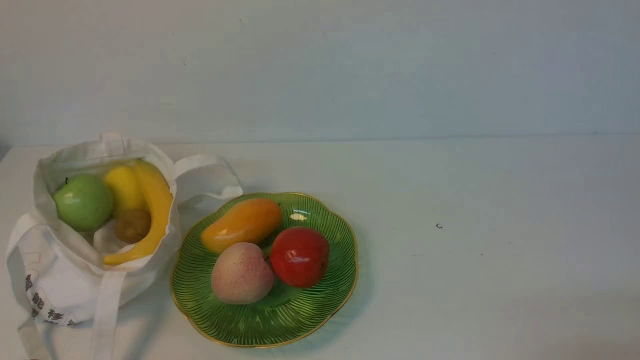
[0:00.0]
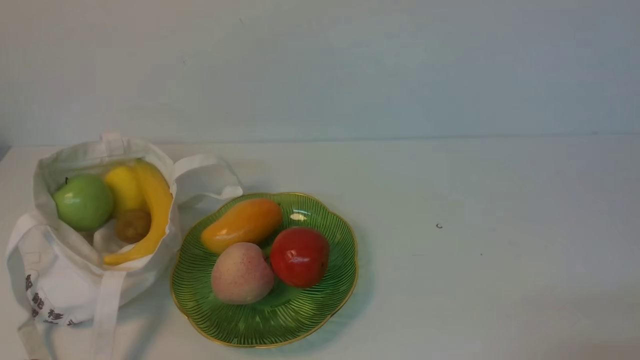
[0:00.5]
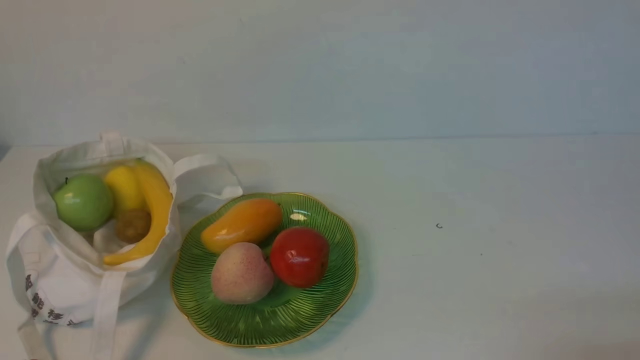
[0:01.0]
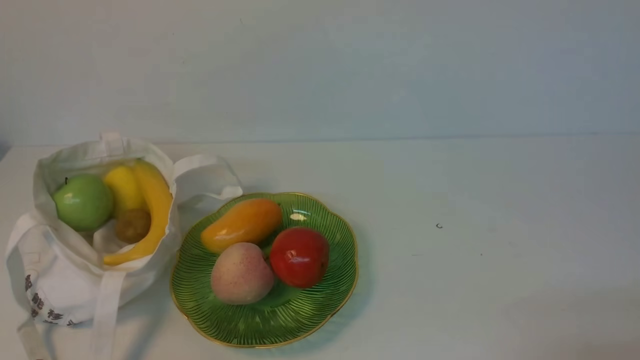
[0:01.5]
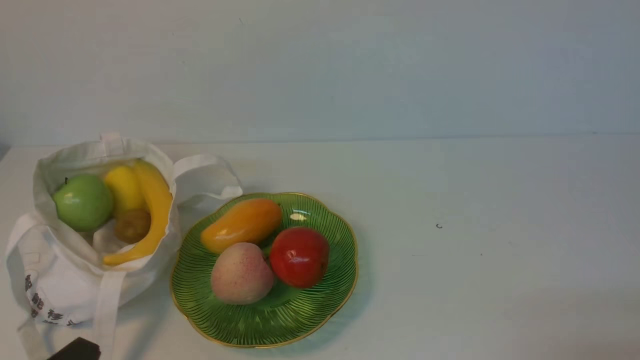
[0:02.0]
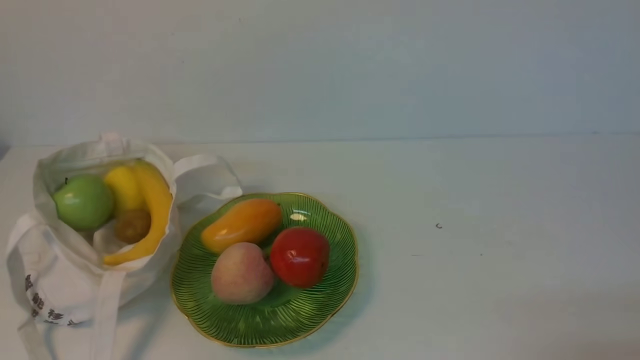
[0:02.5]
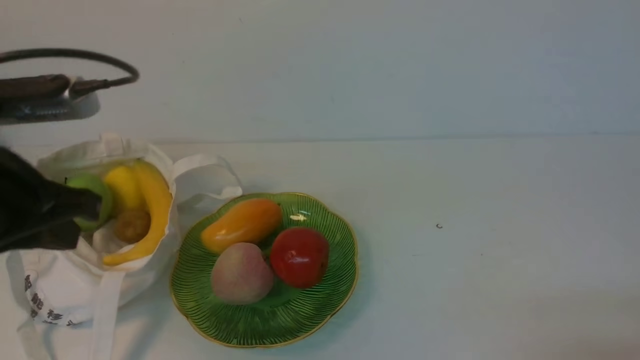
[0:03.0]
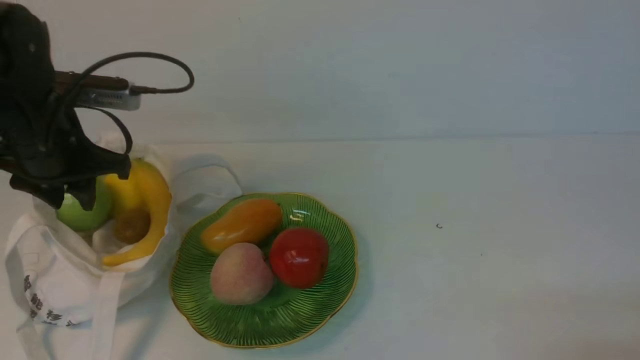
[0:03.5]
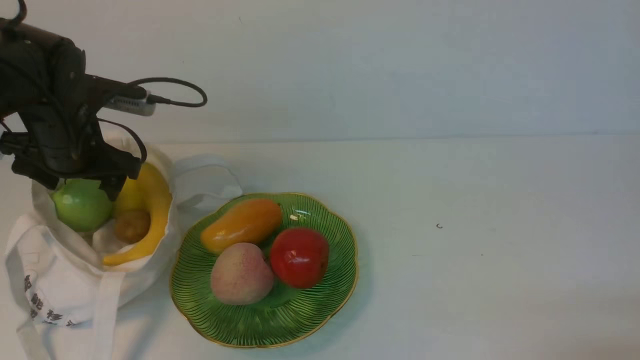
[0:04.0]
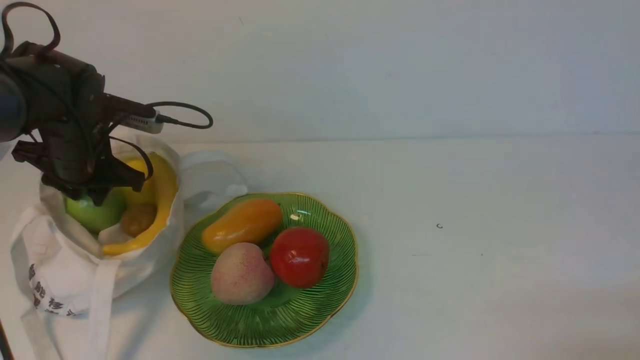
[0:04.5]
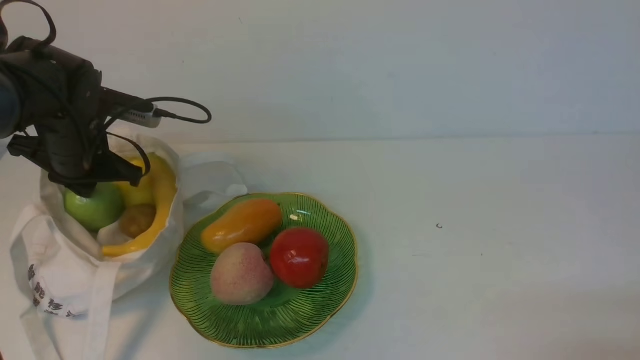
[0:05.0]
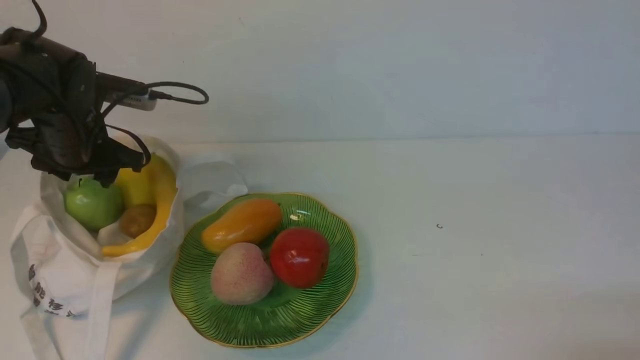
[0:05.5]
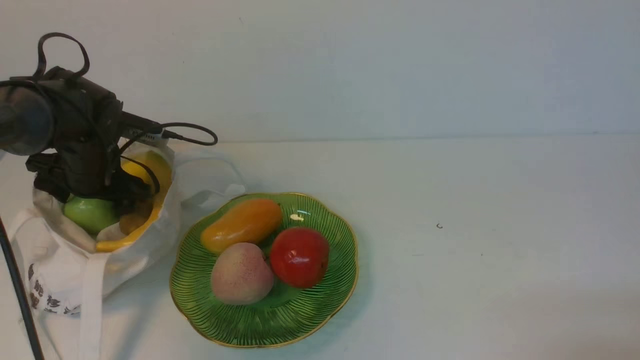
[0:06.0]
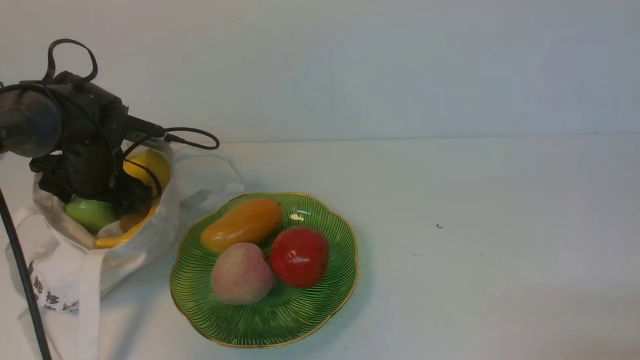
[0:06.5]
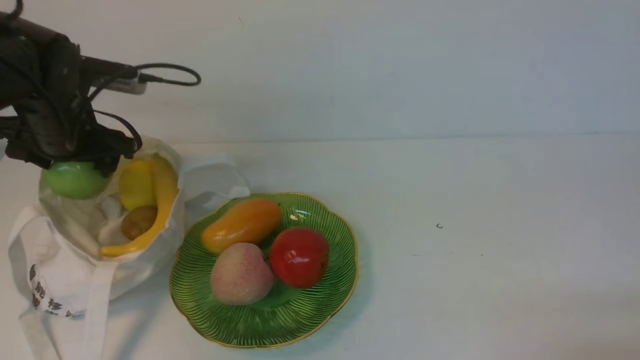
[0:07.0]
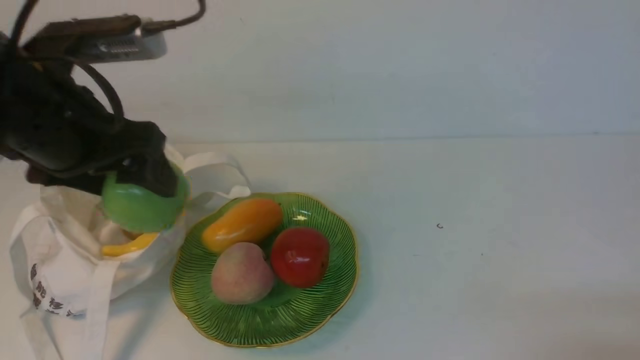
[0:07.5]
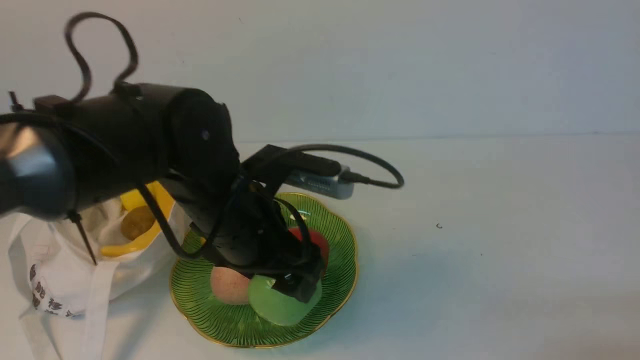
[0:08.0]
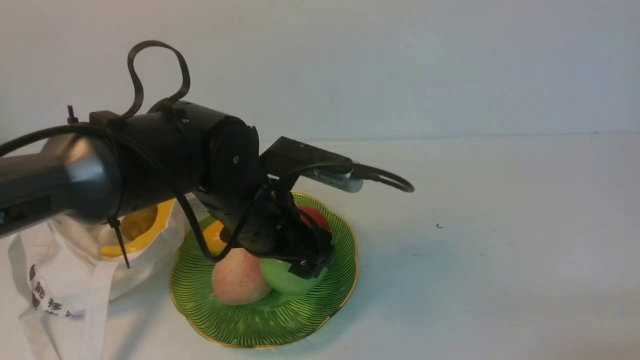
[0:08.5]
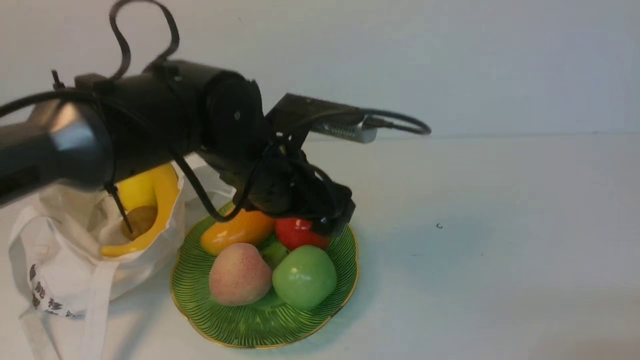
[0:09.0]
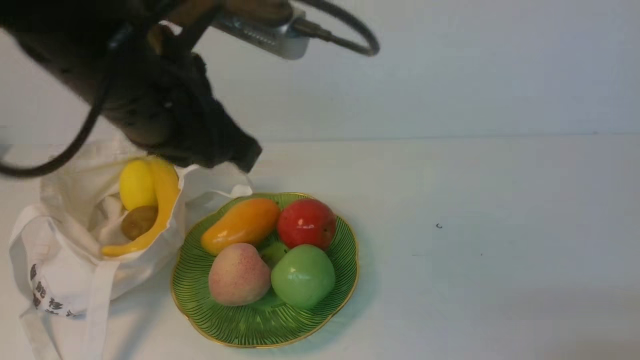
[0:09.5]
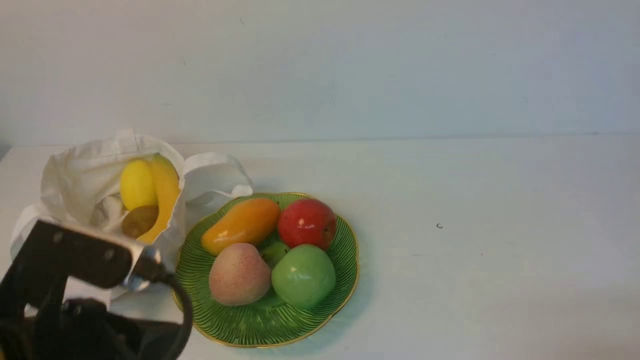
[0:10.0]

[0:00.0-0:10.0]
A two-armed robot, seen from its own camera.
Step, 0:00.0 to 0:06.5: use the left arm to grab an apple from the bag.
Step, 0:07.0 to 0:08.5: use the left arm to put the apple into the empty plate on the right.
0:02.0 to 0:04.0: The left gripper travels forward by approximately 35 cm, and opens up.
0:04.0 to 0:06.0: The left gripper heads downward, covering roughly 5 cm, and closes and opens again.
0:06.0 to 0:08.0: The left gripper goes about 25 cm to the right, backward and upward.
0:08.0 to 0:10.0: The left gripper travels backward and to the left by about 15 cm, and closes up.

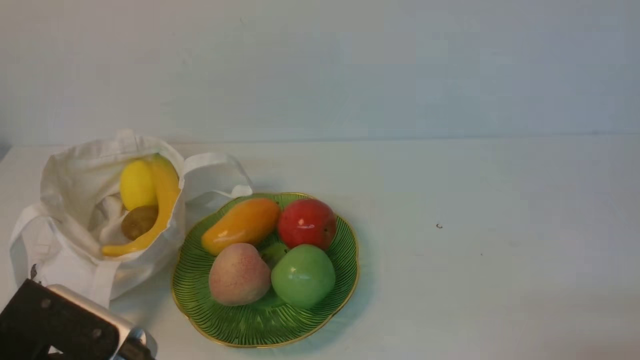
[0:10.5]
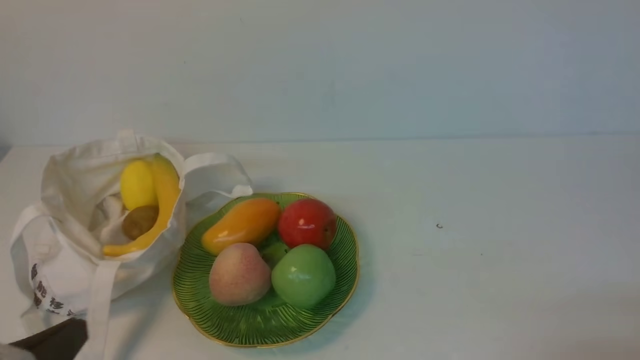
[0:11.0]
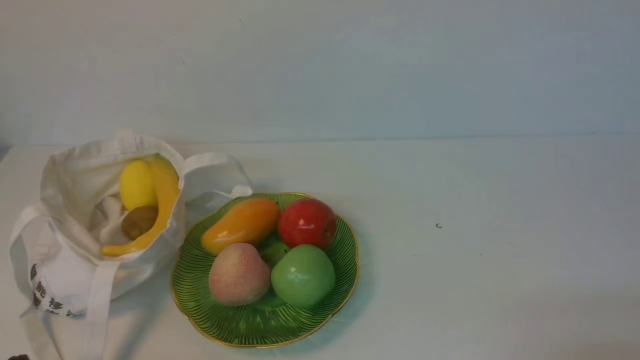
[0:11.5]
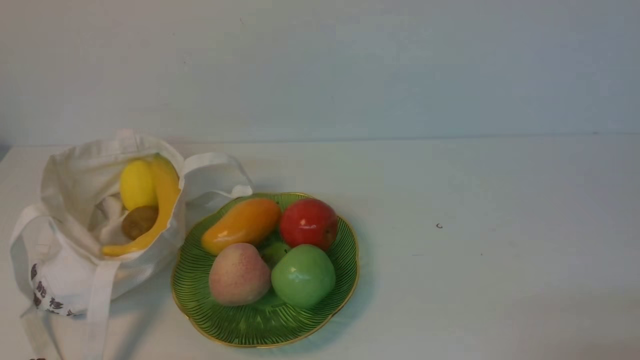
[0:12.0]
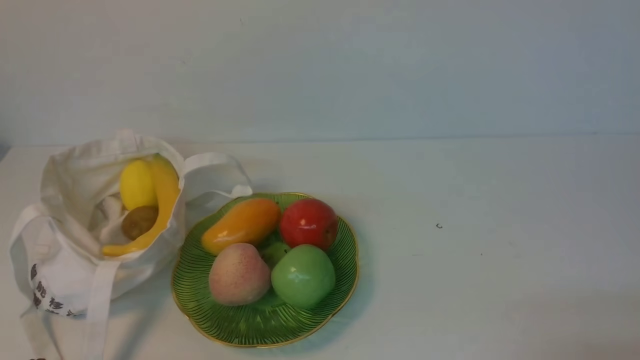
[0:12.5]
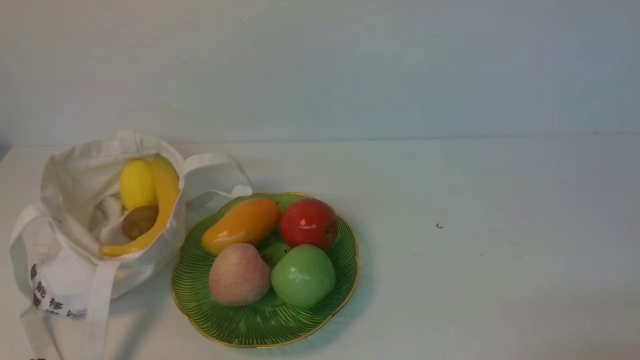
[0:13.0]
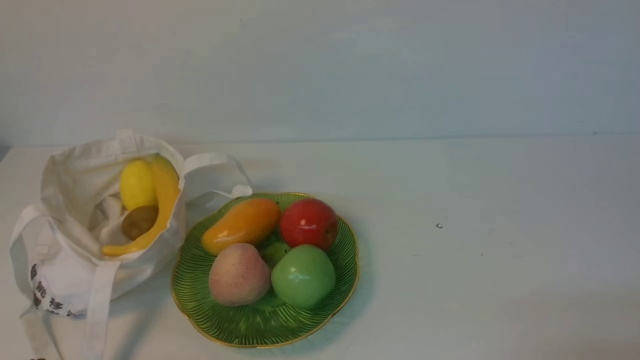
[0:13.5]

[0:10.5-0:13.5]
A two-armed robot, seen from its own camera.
0:10.5 to 0:12.0: The left gripper is displaced downward and to the left by about 10 cm.
0:12.0 to 0:13.5: Both grippers stay about where they are.
